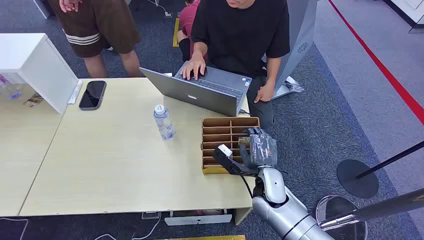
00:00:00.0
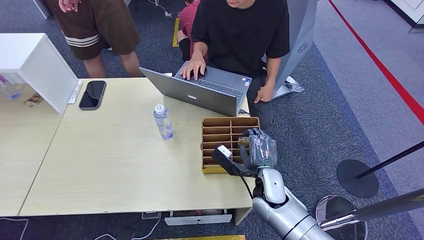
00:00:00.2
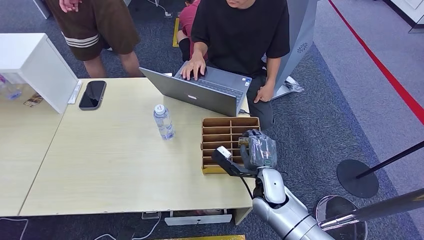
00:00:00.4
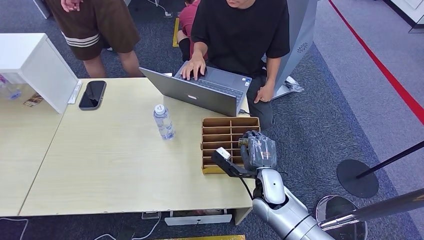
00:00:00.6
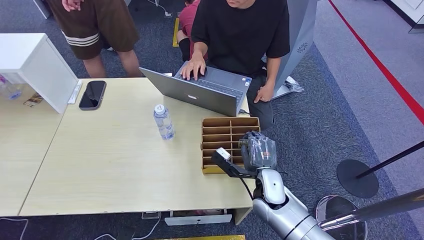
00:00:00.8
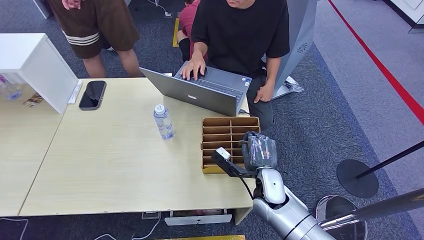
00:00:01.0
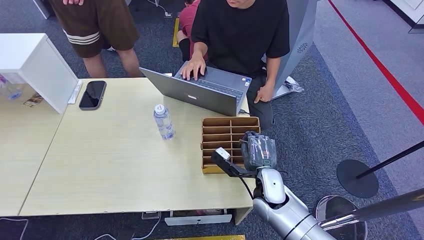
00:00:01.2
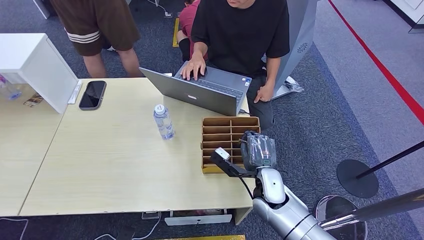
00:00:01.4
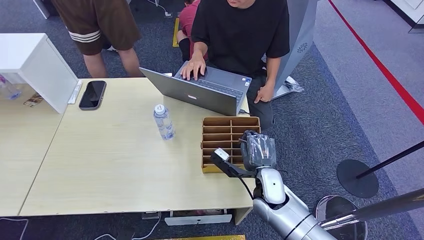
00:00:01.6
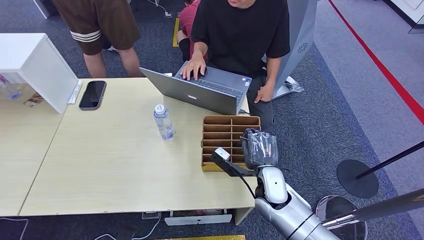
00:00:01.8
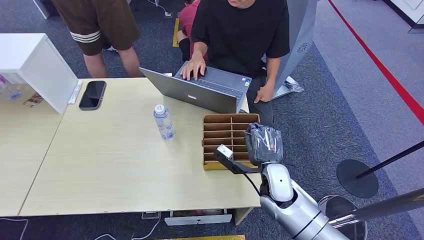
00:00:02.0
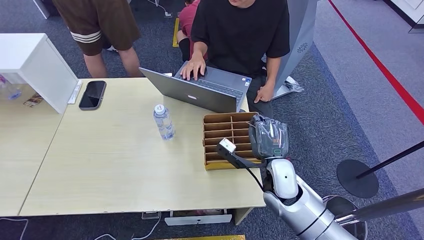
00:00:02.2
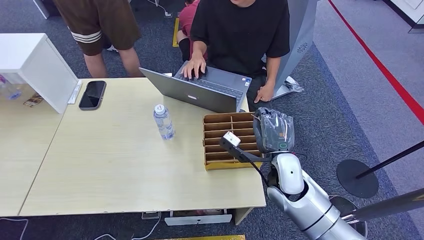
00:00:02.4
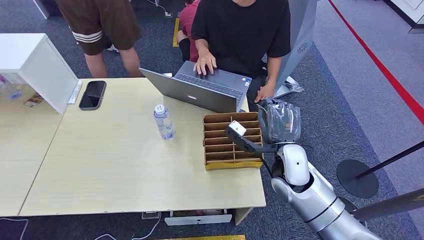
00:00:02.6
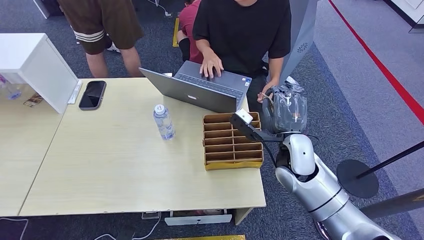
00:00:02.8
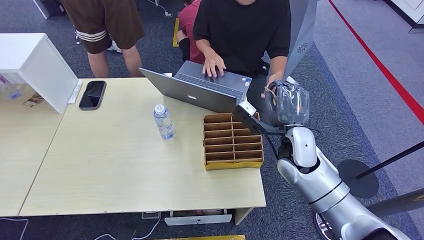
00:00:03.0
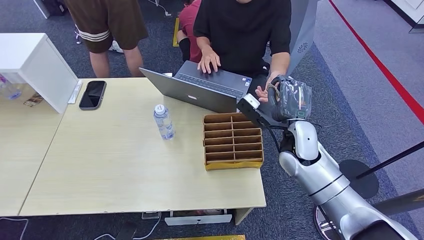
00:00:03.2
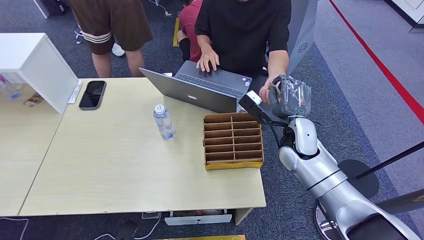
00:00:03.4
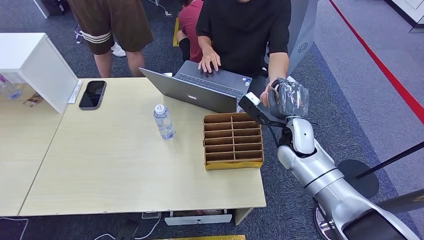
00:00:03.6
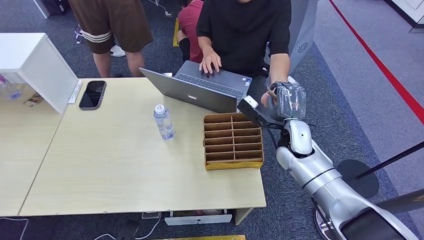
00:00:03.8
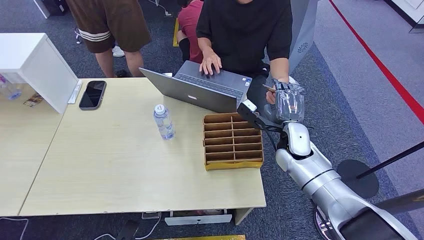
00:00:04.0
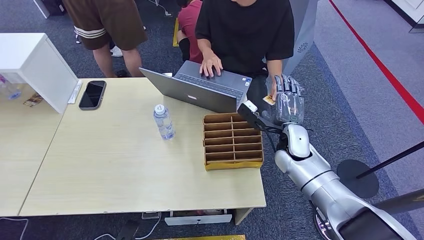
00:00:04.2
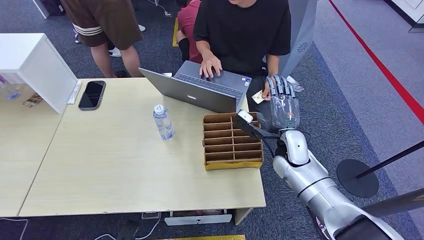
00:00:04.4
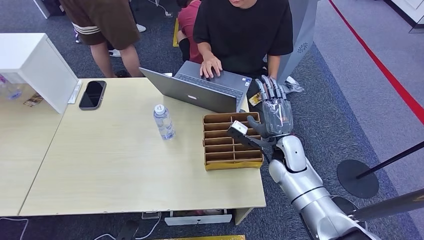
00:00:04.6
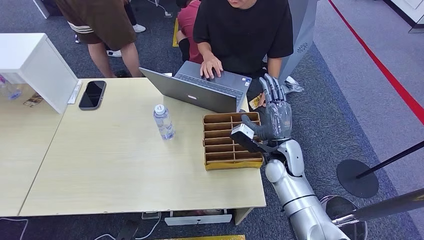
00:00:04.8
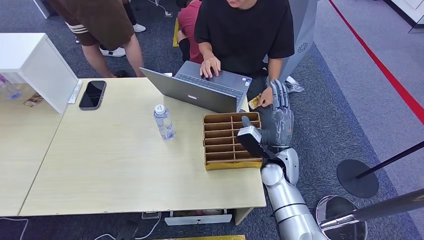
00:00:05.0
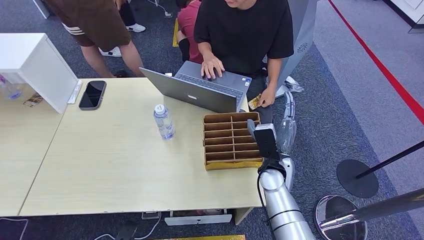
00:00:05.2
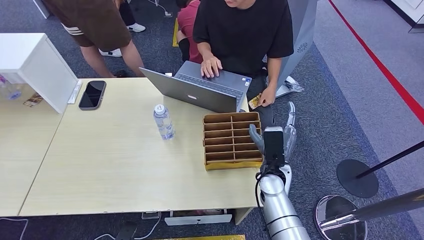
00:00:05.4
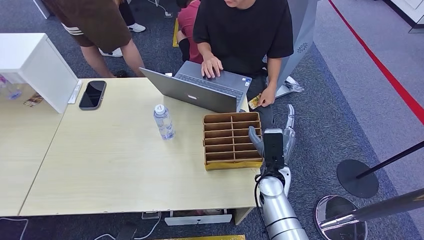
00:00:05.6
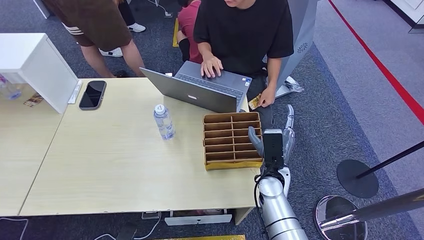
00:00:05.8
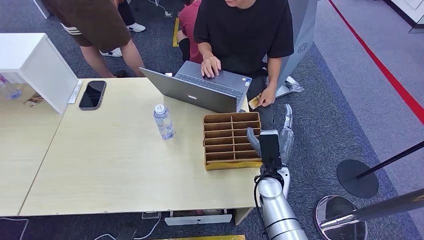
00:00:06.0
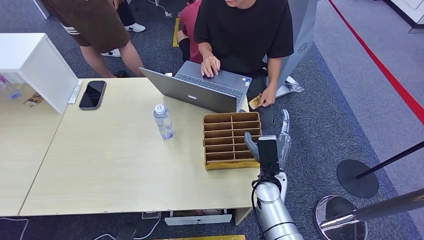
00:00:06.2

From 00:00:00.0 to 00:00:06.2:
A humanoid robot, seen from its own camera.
Task of the whole recording: Pick up the card and hand it to the target person.
Step, from 00:00:00.0 to 00:00:02.2: Pick up the key card from the card box.
Step, from 00:00:02.4 to 00:00:06.2: Hand the key card to the target.
From 00:00:01.6 to 00:00:03.2: The right hand is displaced upward, forward and to the right by approximately 15 cm.
From 00:00:03.2 to 00:00:04.6: The right hand moves downward, some 5 cm.
From 00:00:04.6 to 00:00:06.2: The right hand travels backward and downward by about 10 cm.
